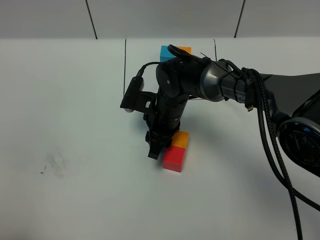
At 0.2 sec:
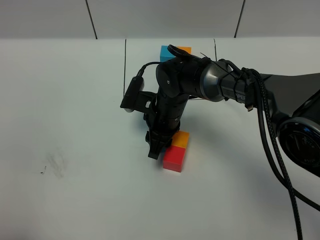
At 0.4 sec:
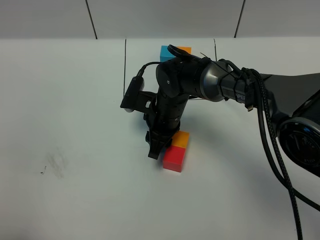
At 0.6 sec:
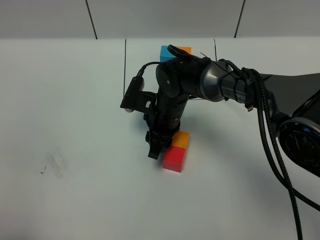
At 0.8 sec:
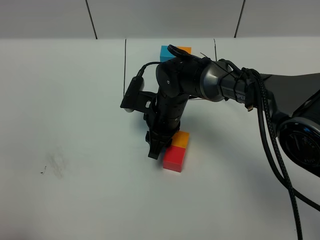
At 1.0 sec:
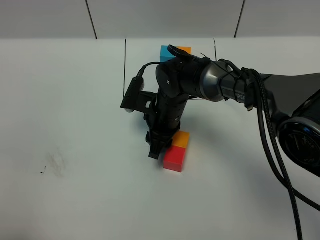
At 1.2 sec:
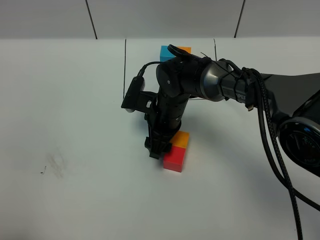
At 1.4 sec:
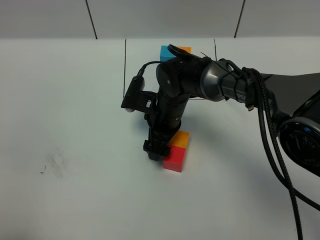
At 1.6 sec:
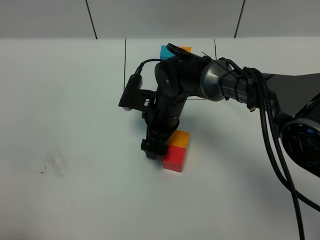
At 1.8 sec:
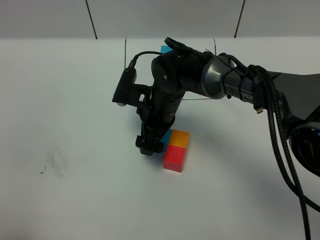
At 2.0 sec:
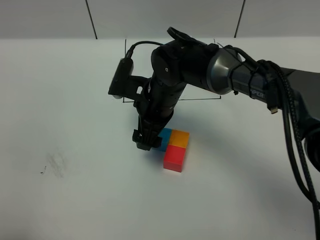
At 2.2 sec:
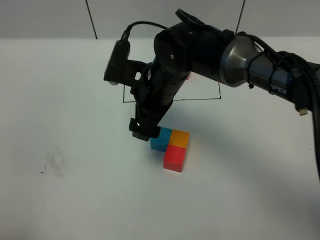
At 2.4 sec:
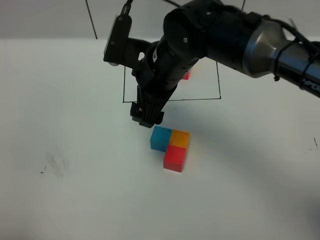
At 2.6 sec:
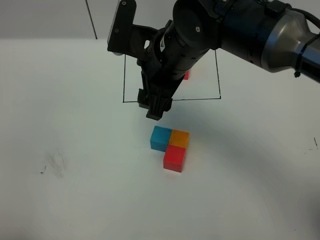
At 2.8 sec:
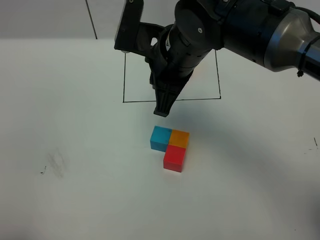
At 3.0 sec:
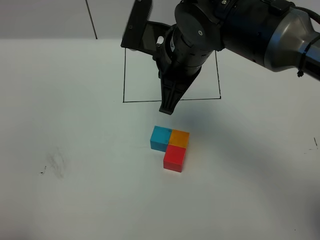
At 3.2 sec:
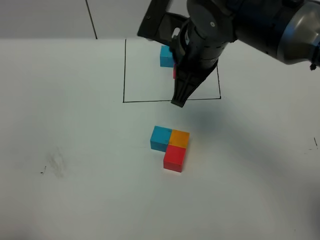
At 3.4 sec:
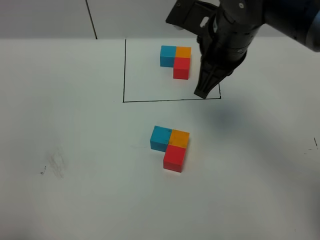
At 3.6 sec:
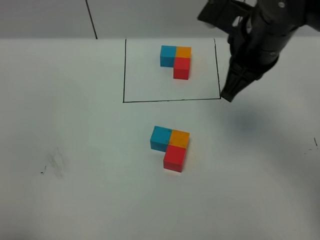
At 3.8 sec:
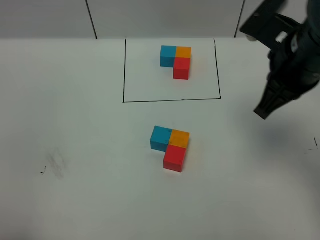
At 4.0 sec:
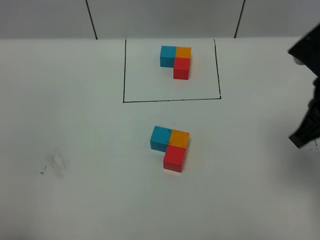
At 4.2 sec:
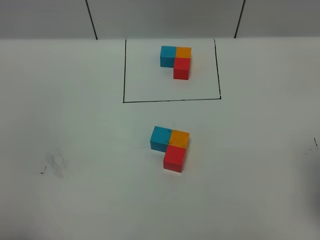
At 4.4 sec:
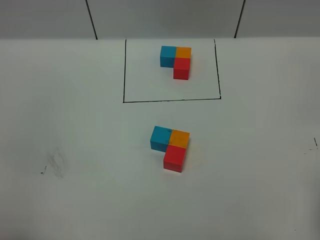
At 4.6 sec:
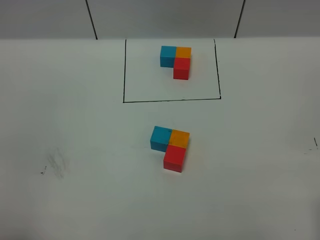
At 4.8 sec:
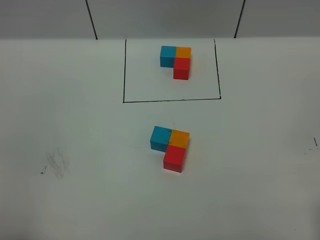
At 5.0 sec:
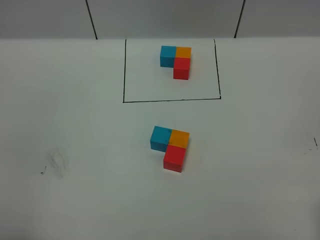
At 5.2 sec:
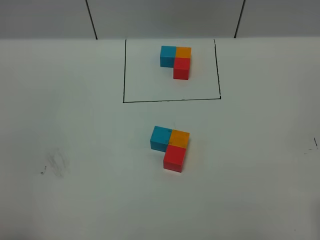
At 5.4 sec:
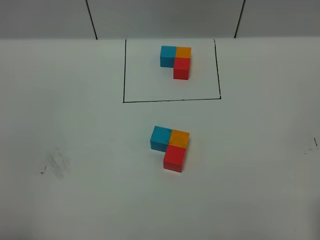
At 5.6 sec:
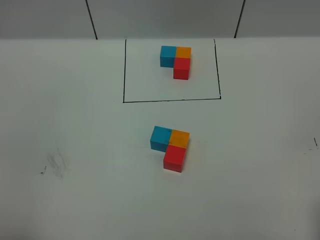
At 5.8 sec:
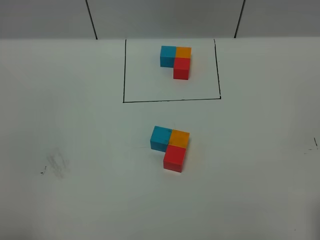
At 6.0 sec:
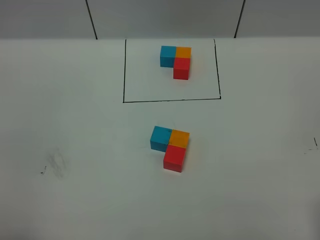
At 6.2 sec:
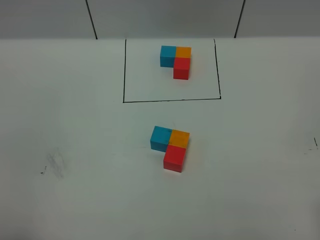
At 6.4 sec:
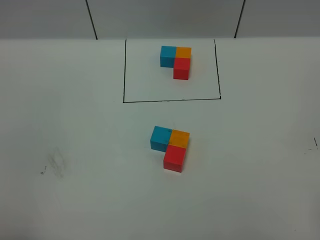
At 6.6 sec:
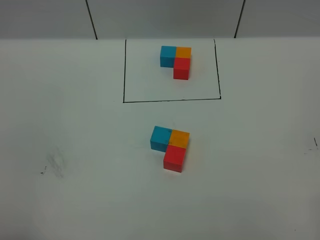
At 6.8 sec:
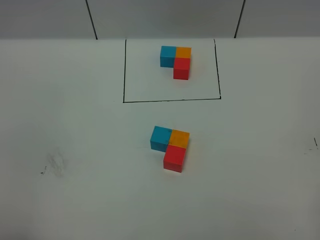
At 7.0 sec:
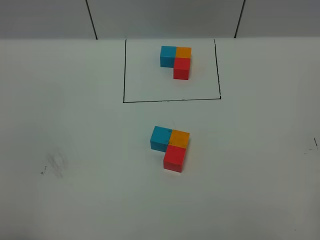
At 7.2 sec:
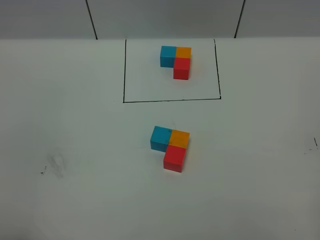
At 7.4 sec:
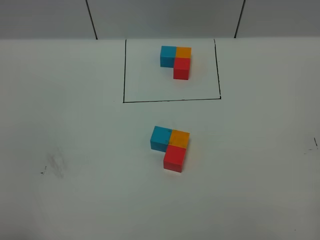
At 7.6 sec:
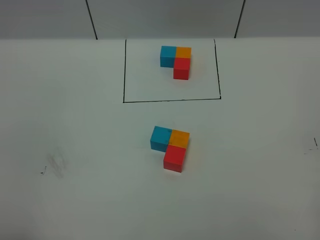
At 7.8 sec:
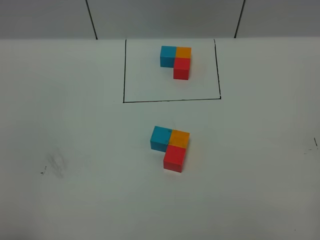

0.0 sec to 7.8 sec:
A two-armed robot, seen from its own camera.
Task of the whole recording: According to the building block template in front, assemble the scattered blocks together.
0.0 sec to 1.6 sec: The right gripper opens its fingers.
1.6 sec to 3.2 sec: The right gripper travels upward by roughly 20 cm, and closes its fingers.
3.2 sec to 4.6 sec: The right gripper is displaced backward and to the right by approximately 35 cm.
